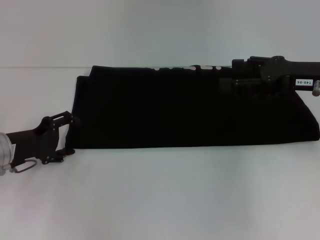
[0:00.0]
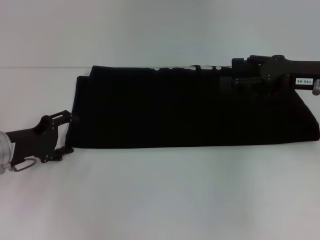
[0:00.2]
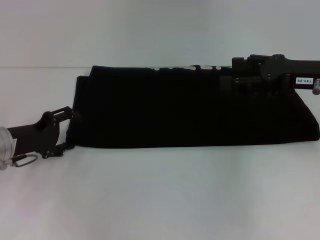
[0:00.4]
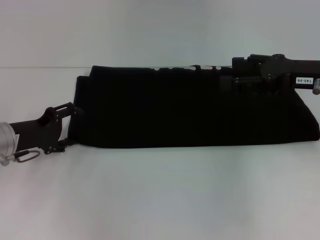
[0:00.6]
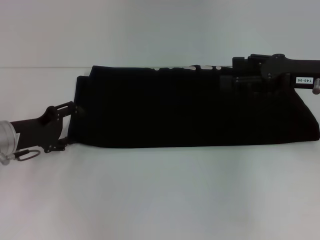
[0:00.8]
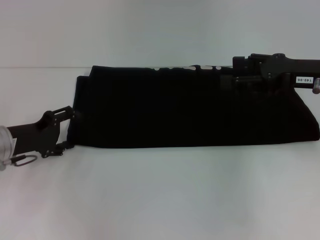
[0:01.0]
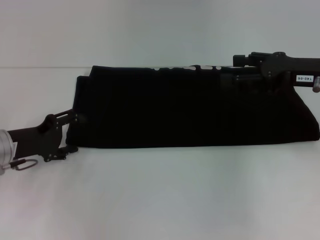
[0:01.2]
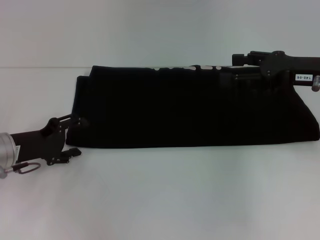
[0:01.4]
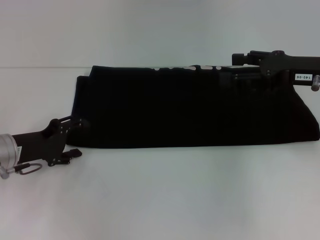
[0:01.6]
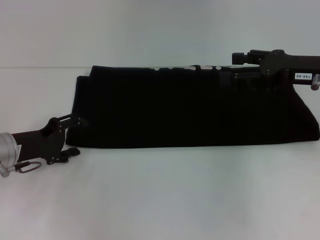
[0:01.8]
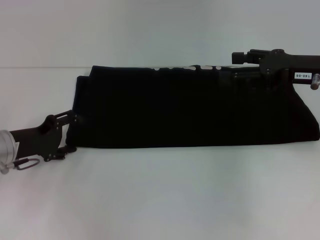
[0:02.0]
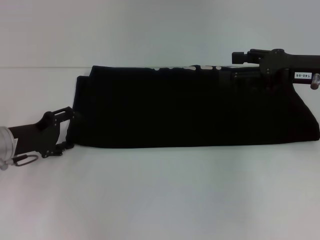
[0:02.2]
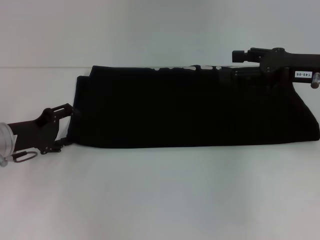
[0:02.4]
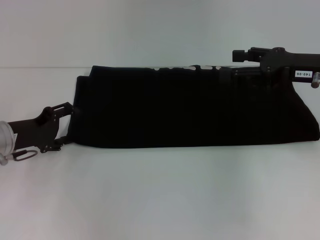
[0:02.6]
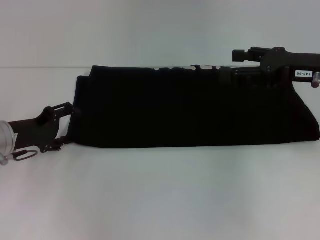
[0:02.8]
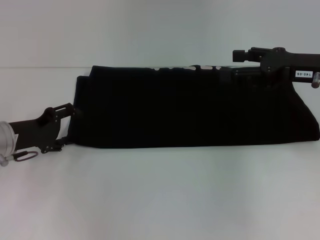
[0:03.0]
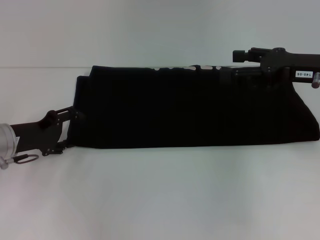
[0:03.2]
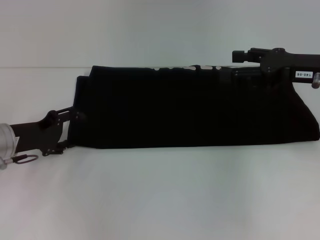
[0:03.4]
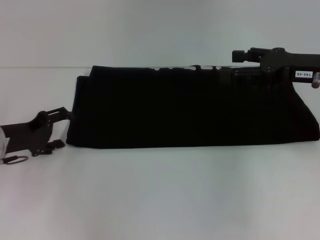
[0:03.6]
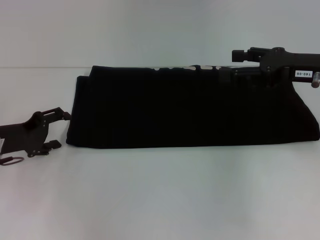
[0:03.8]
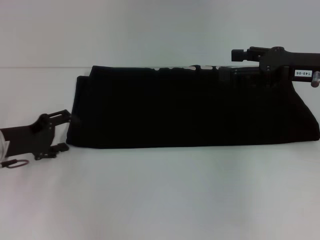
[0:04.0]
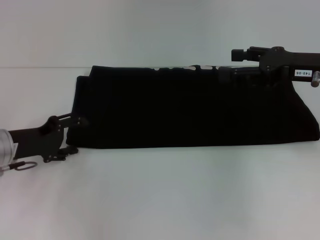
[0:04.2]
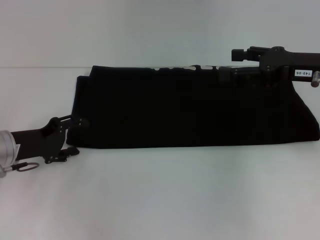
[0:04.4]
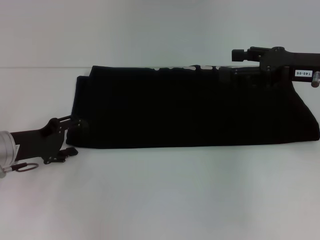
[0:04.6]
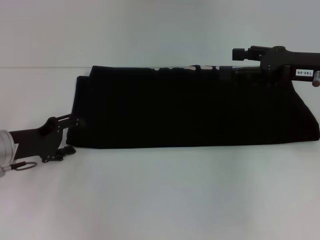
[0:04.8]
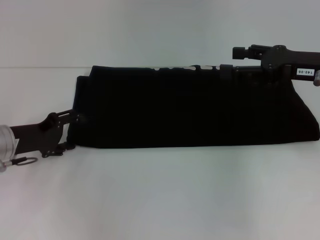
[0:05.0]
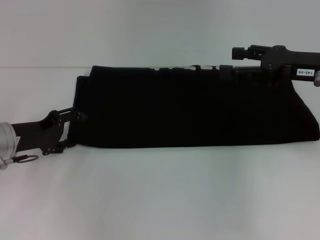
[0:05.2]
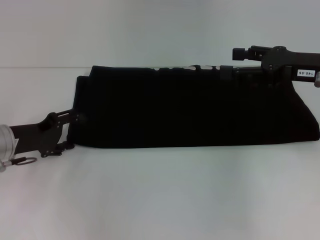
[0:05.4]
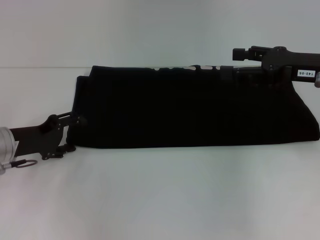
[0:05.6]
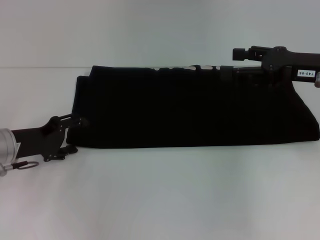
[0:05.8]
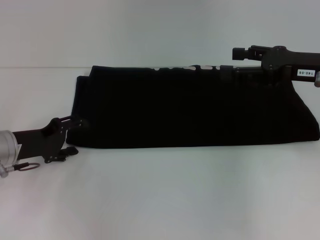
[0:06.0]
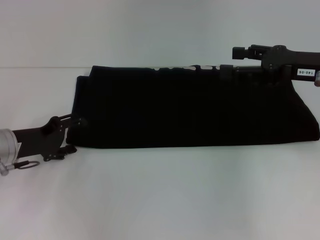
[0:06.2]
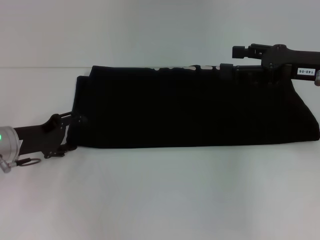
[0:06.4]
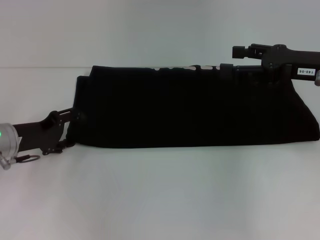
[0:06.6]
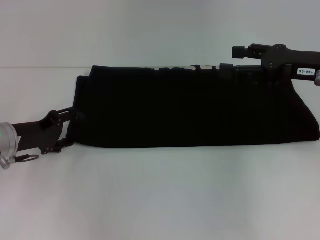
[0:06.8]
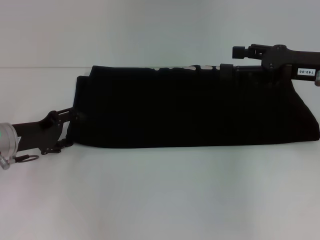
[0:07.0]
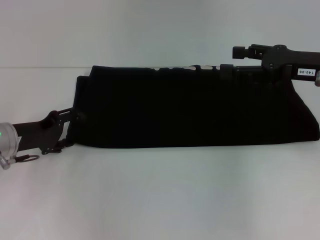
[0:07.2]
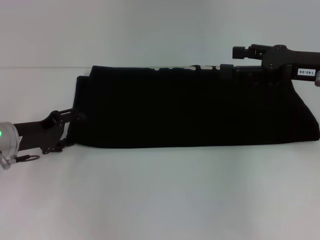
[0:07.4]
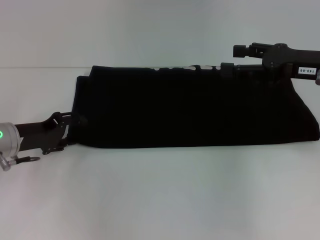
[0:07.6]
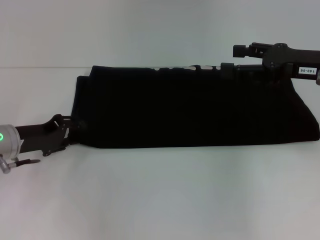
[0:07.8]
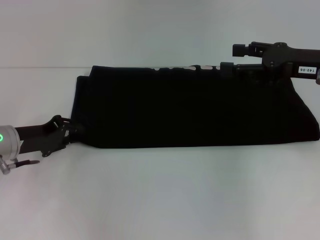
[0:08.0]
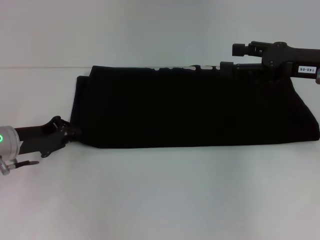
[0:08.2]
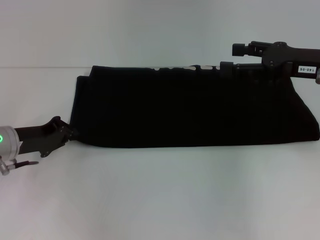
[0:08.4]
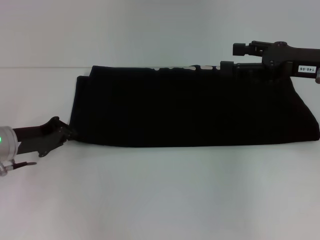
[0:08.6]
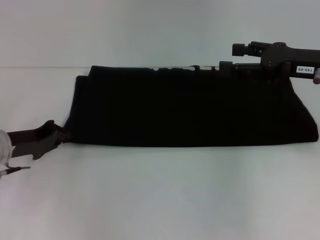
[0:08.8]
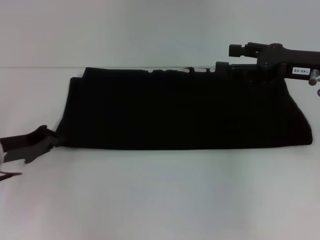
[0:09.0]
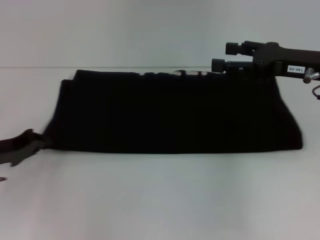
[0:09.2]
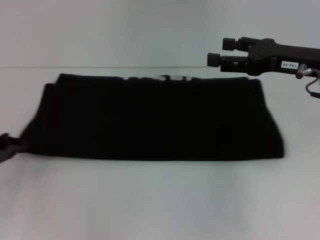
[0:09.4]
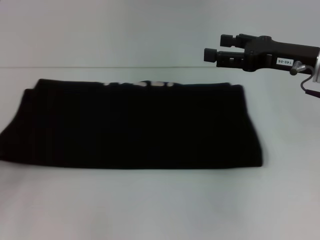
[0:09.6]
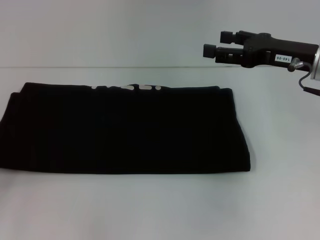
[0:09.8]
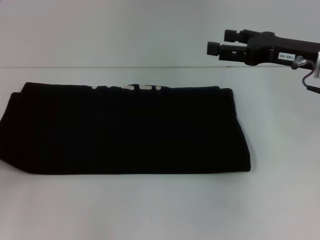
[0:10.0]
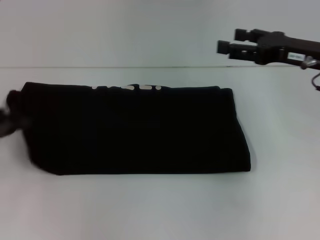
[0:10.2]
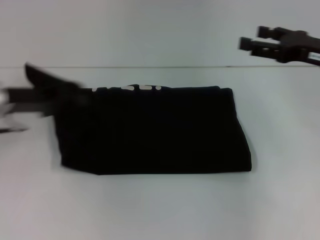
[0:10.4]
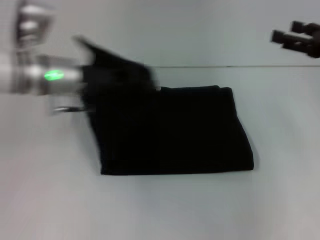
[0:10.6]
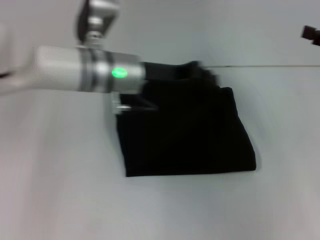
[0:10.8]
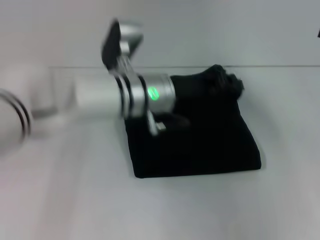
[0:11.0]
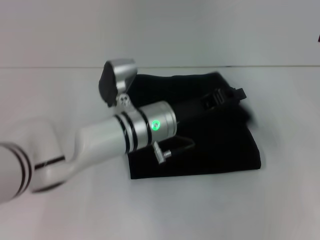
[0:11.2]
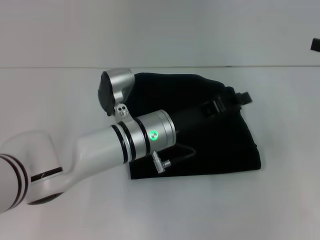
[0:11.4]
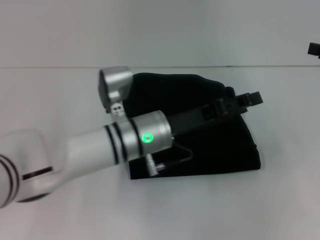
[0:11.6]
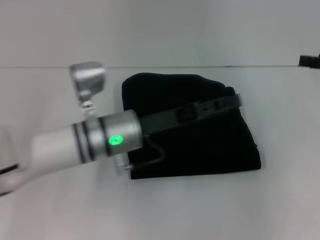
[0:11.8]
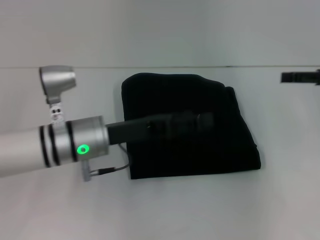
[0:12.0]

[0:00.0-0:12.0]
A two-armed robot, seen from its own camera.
Step, 0:00.0 to 0:11.2: Fold the clothes with your left hand.
0:00.0 to 0:04.4: The grippers stay close to where they were, moving slightly.
0:04.4 to 0:06.0: Neither gripper changes place.
0:06.0 to 0:07.6: There are only small adjustments of the grippers.
0:07.6 to 0:09.0: The left gripper closes.
0:09.0 to 0:10.4: The left gripper is displaced upward by approximately 10 cm, and goes to the left and returns, about 10 cm each way.
0:10.4 to 0:12.0: The right gripper moves to the right, roughly 5 cm. The left gripper heads to the right, covering approximately 15 cm, and opens its fingers.

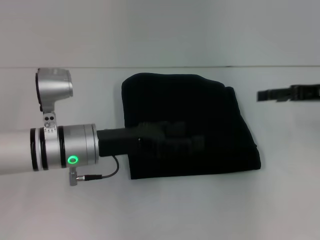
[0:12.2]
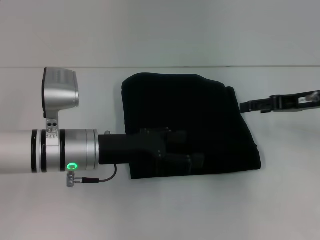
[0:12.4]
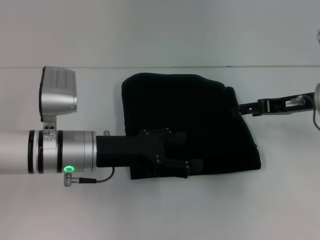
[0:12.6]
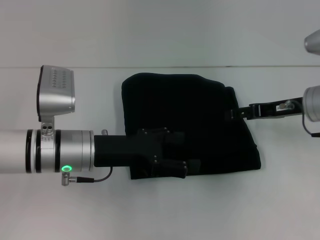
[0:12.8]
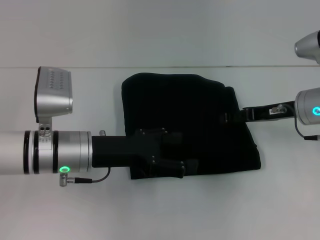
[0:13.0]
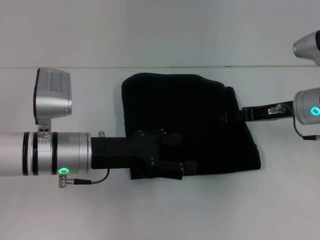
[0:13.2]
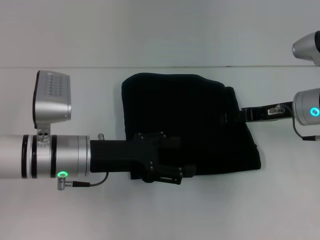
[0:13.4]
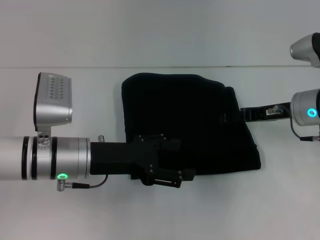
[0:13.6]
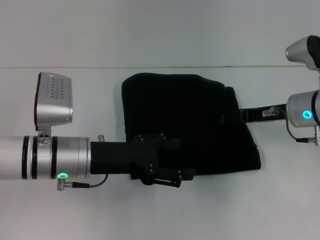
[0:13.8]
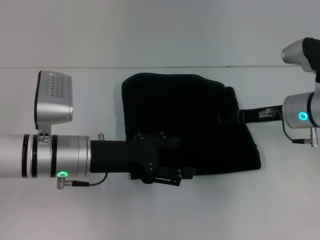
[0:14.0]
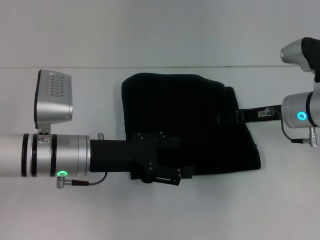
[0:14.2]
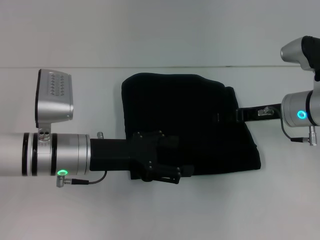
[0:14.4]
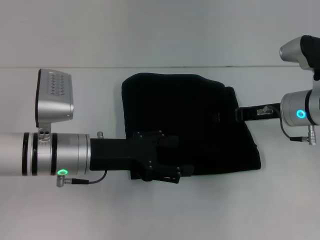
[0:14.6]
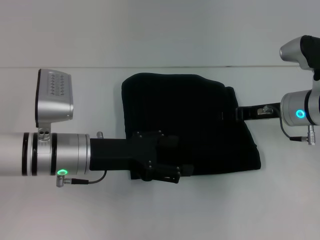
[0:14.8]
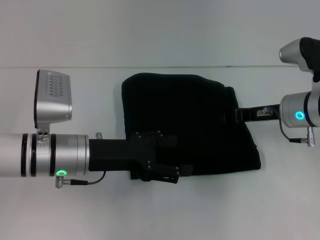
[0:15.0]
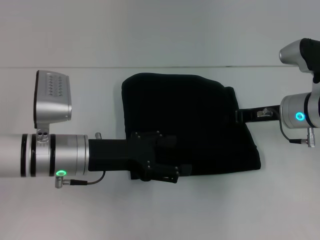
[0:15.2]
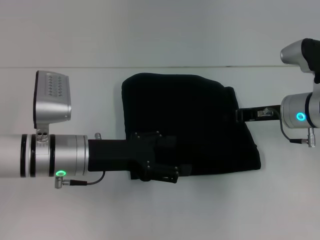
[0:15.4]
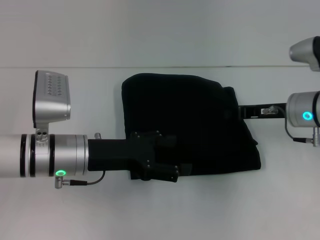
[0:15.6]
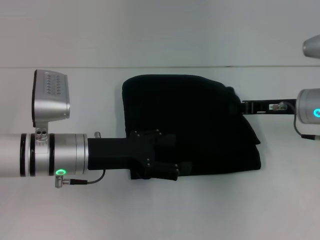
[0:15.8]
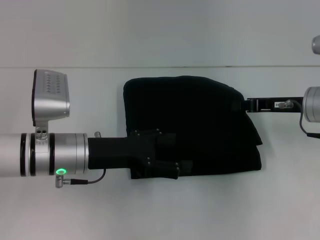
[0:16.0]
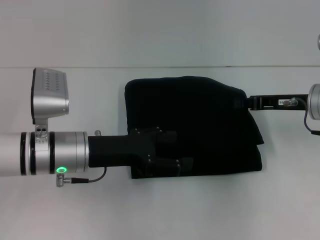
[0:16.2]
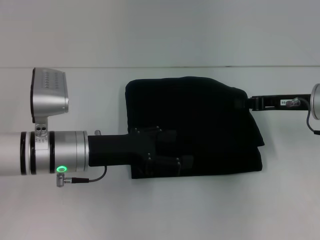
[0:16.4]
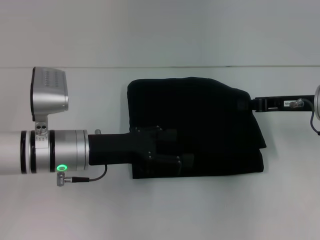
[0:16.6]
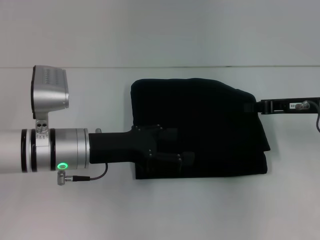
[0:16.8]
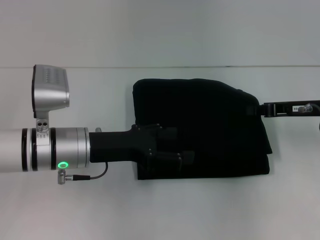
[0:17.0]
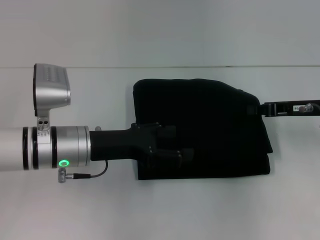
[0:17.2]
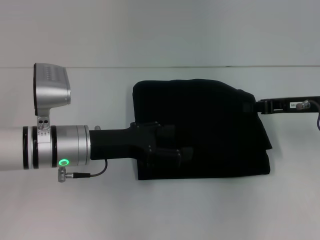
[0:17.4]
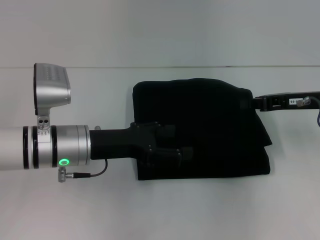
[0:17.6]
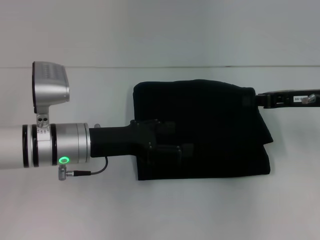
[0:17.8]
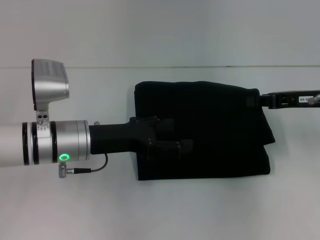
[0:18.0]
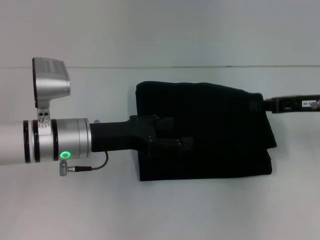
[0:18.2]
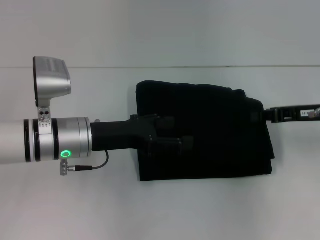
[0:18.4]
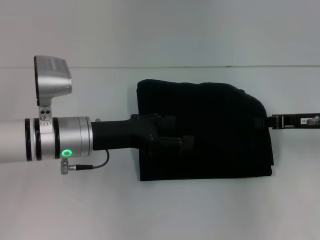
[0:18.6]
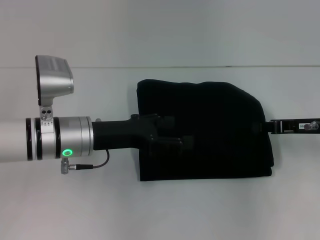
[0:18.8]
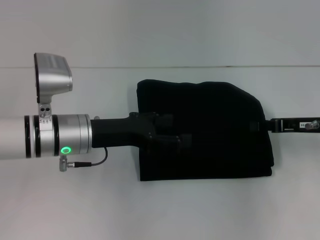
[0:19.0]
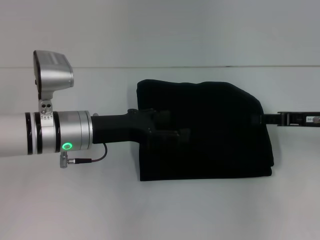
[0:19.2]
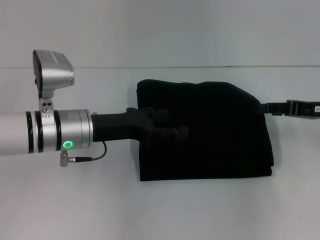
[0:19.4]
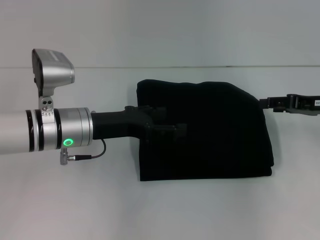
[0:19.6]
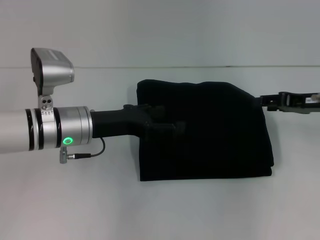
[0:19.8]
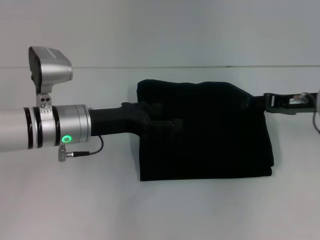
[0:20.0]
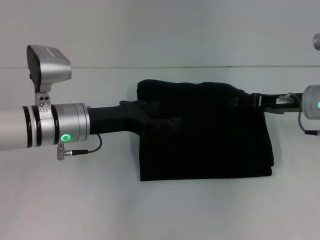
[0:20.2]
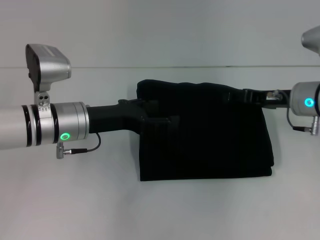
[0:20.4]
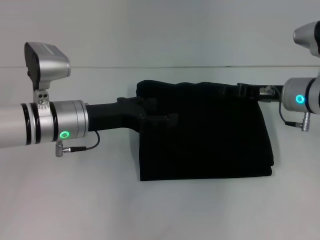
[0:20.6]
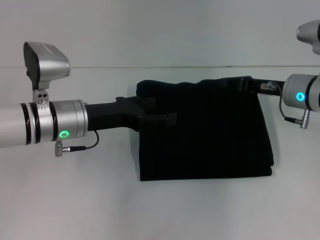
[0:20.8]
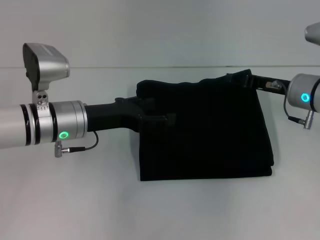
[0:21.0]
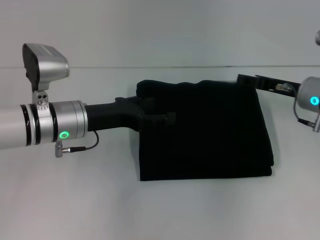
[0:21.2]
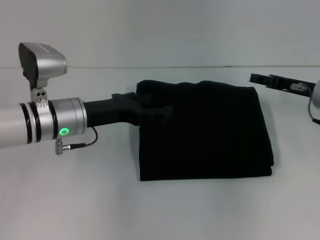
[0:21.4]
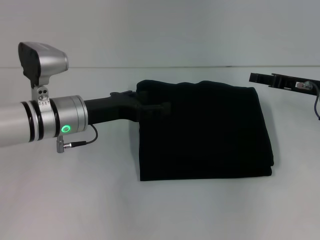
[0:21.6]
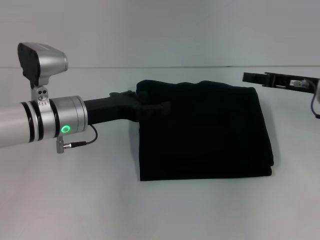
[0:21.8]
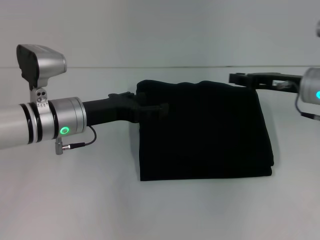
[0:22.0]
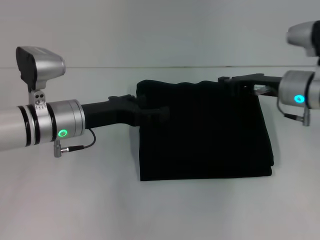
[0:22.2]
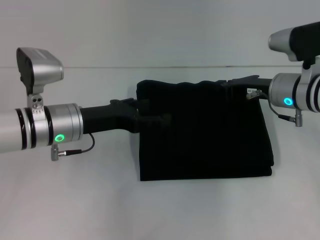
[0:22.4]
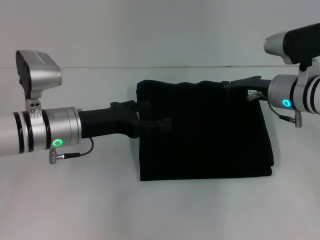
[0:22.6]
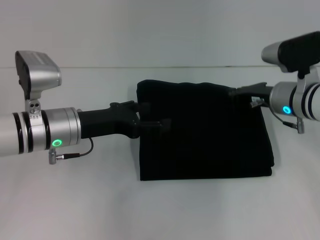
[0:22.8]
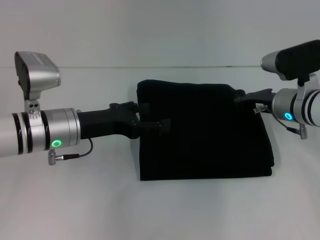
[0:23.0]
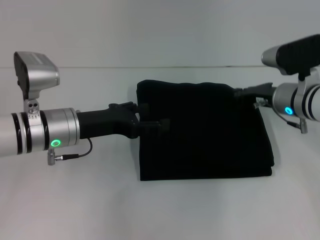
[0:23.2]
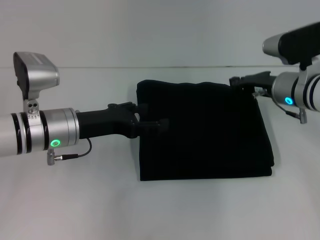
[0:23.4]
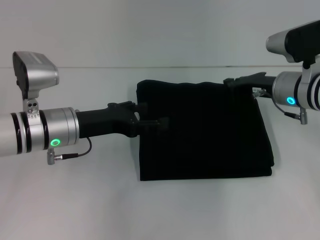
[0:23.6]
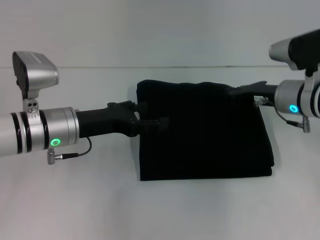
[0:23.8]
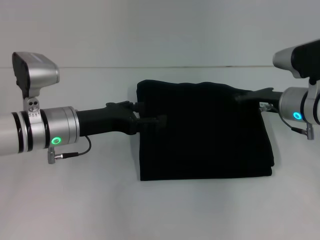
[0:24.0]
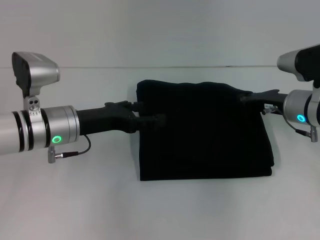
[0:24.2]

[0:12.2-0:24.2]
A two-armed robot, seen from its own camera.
0:12.2 to 0:13.8: The right gripper goes about 10 cm to the left and downward.
0:13.8 to 0:15.2: The right gripper closes up.
0:15.2 to 0:16.6: The right gripper changes place by approximately 5 cm, and closes its fingers.
0:16.6 to 0:18.2: There are only small adjustments of the grippers.
0:18.2 to 0:19.8: The right gripper opens up.
0:19.8 to 0:21.2: The right gripper is displaced to the left by about 5 cm.
0:21.2 to 0:22.6: The right gripper closes.
0:22.6 to 0:24.2: The grippers move only a little.
